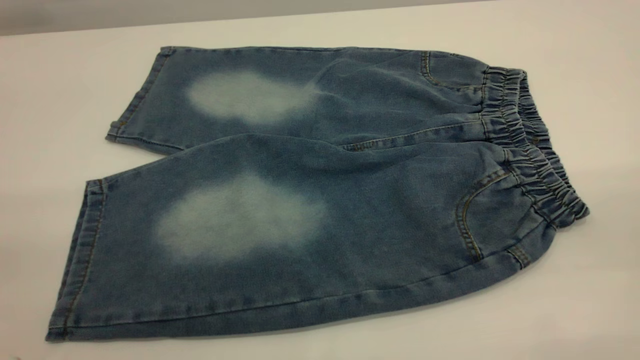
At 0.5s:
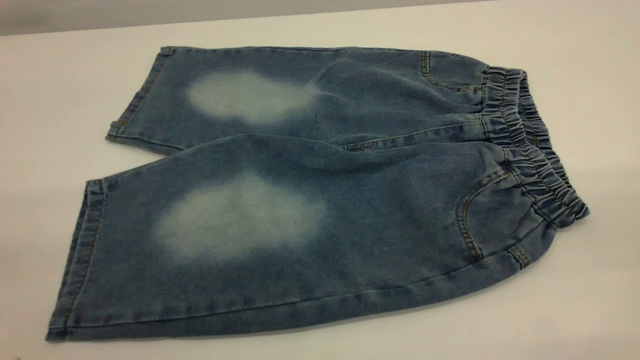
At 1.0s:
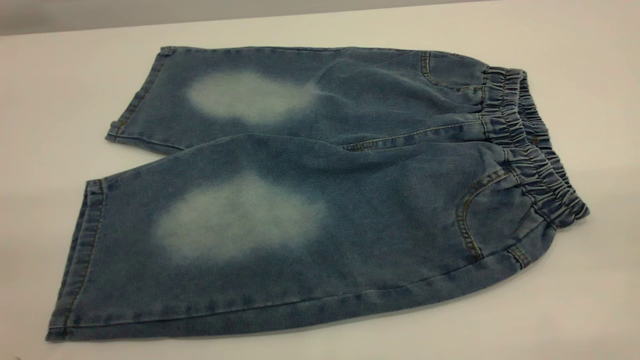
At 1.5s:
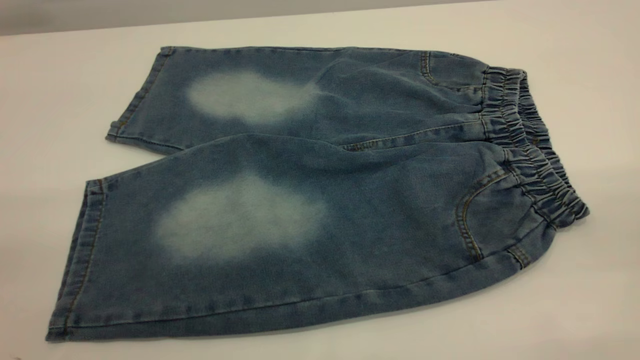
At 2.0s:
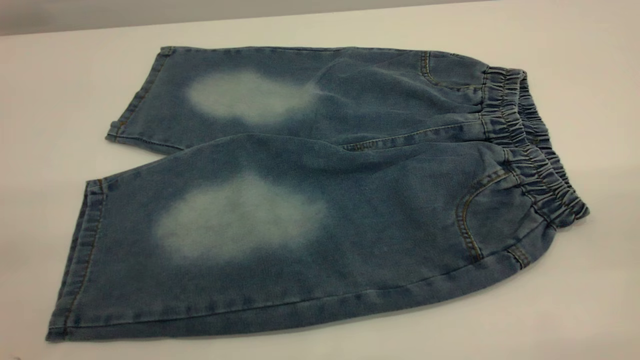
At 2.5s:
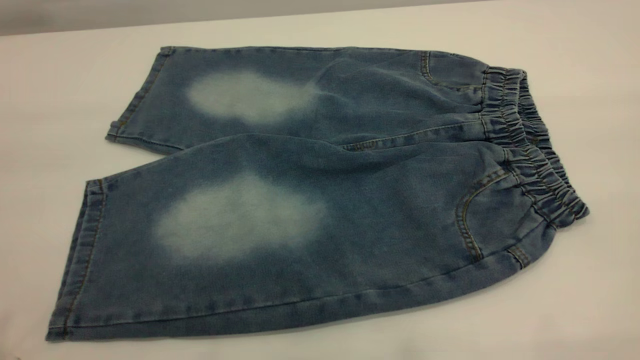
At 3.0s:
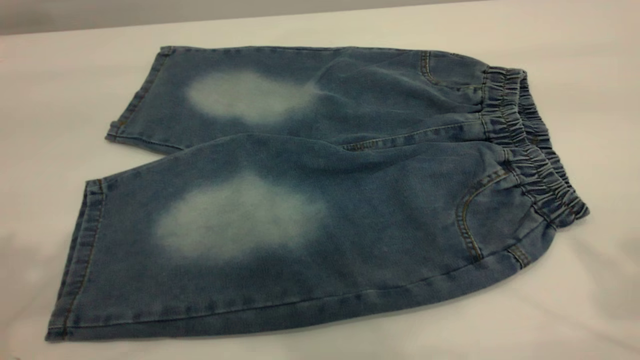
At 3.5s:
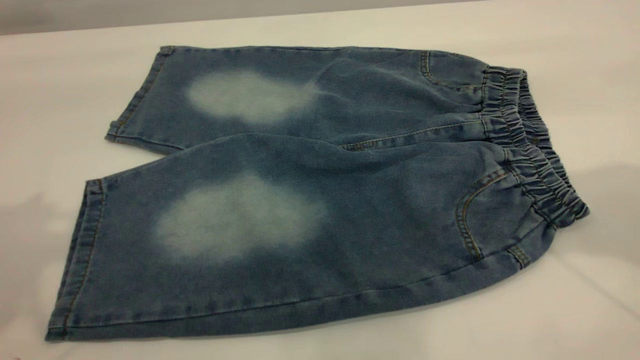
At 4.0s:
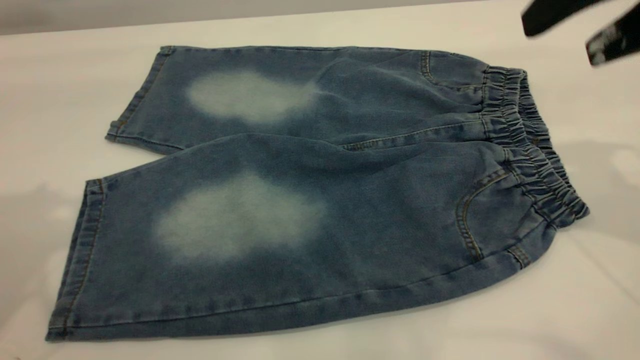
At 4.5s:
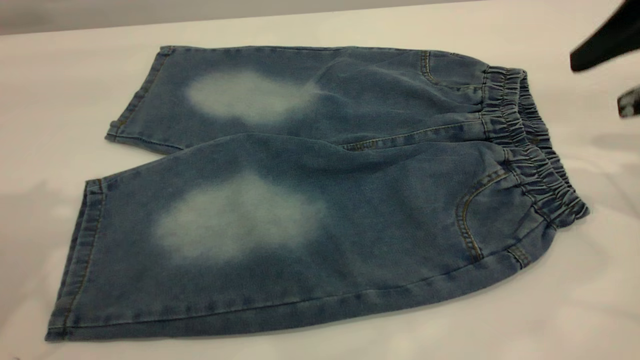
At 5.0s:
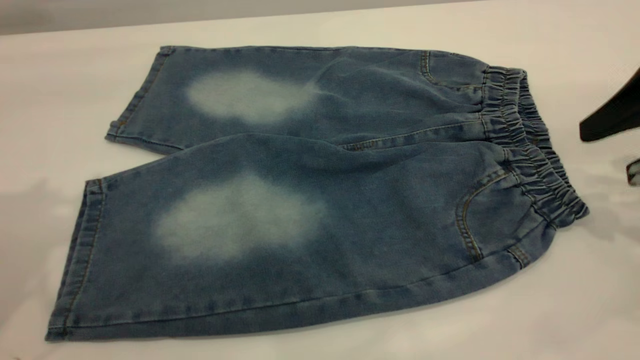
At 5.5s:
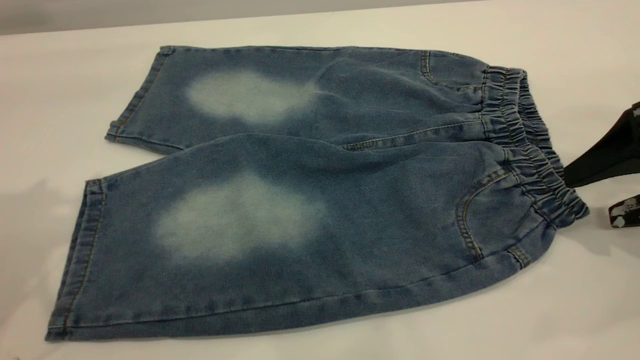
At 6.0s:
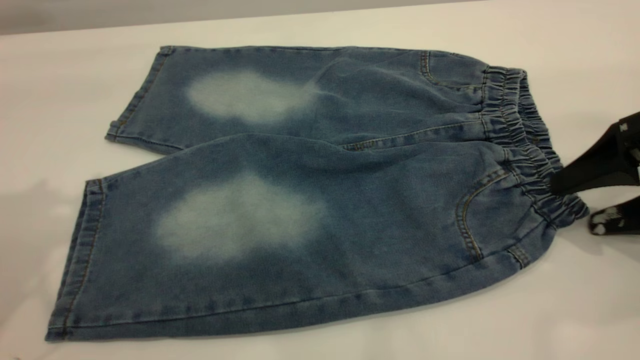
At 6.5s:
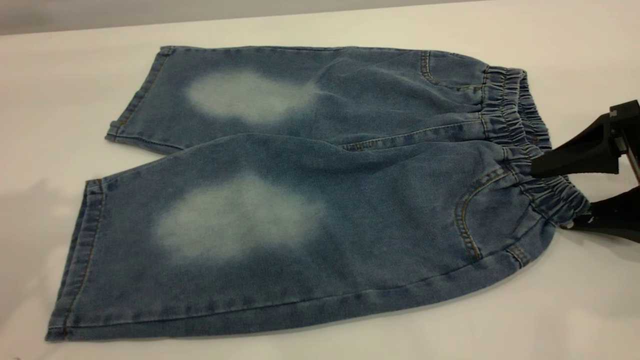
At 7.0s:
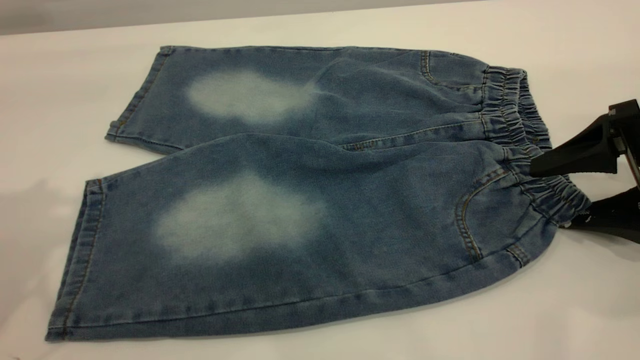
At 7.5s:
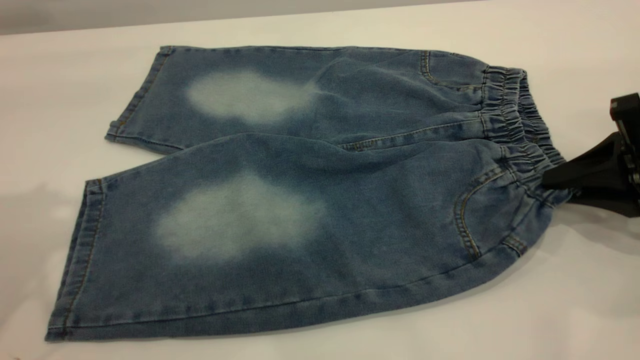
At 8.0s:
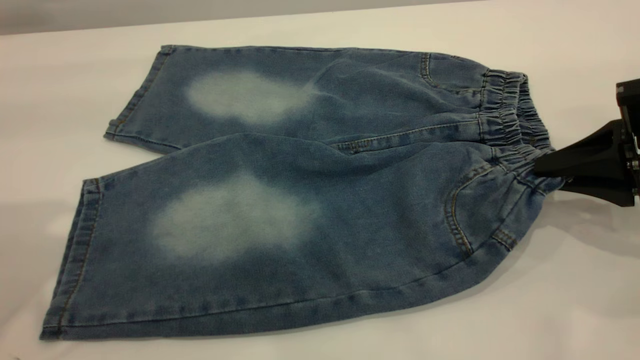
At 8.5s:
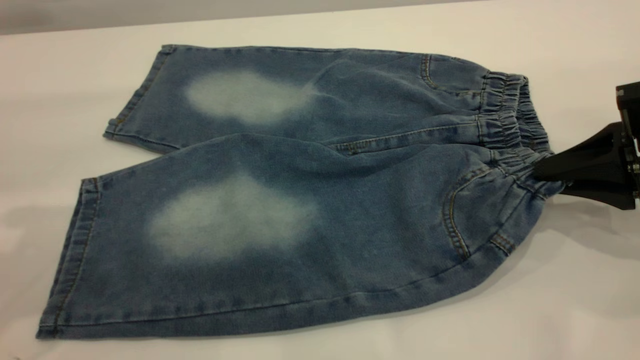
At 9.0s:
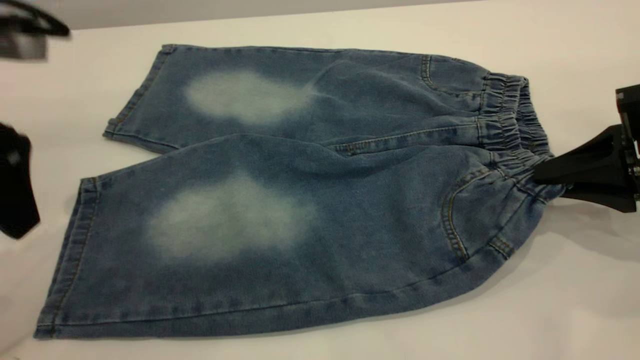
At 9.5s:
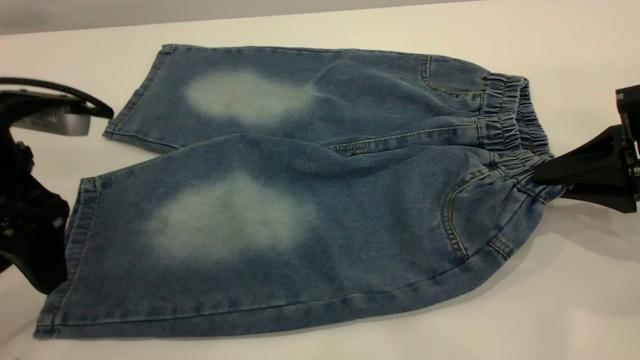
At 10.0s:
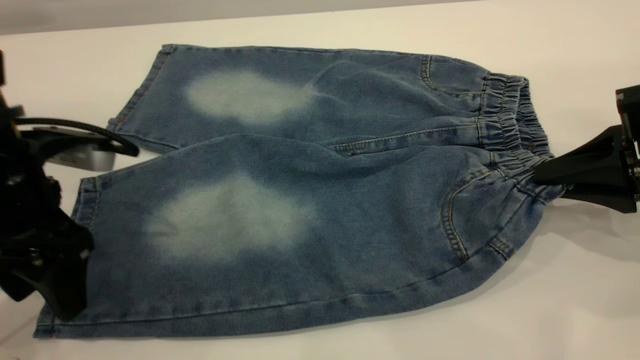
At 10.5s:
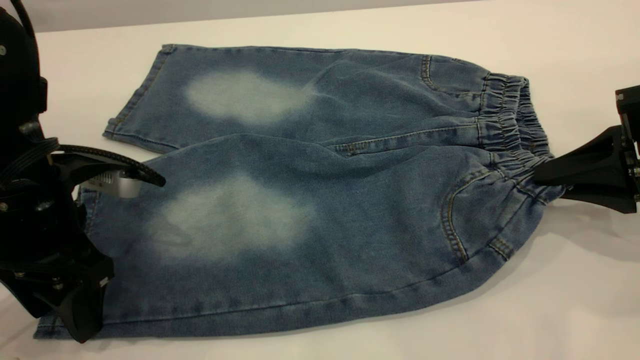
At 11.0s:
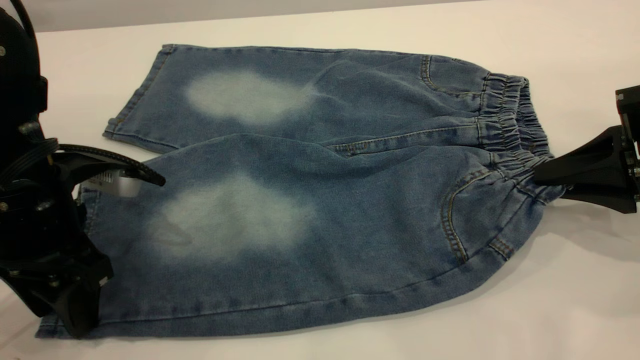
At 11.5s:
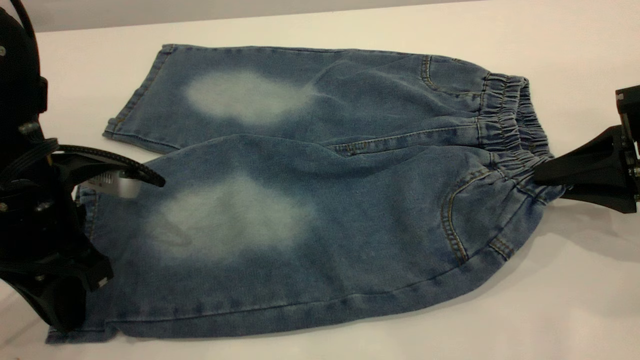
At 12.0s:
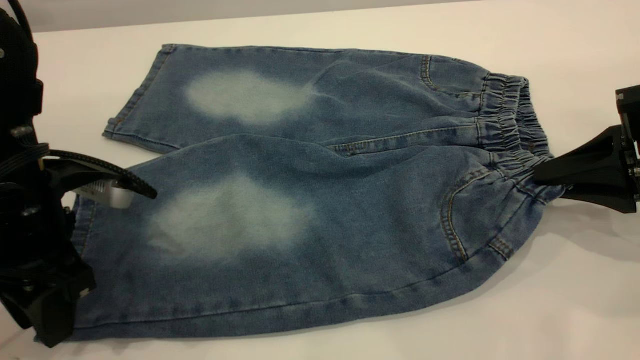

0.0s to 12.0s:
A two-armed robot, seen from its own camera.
0.0s to 2.0s: The two grippers keep their place.
2.0s to 4.0s: The right gripper is displaced forward by approximately 30 cm.
4.0s to 6.0s: The right gripper moves downward, roughly 15 cm.
6.0s to 8.0s: The right gripper closes.
8.0s to 10.0s: The left gripper travels downward by roughly 20 cm.
10.0s to 12.0s: The left gripper closes.

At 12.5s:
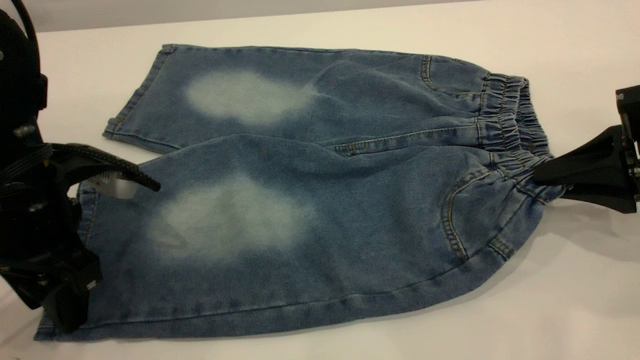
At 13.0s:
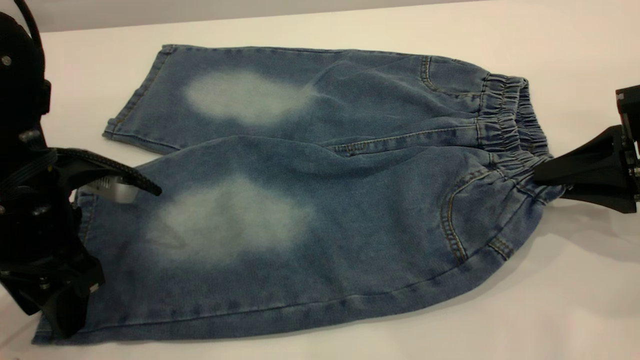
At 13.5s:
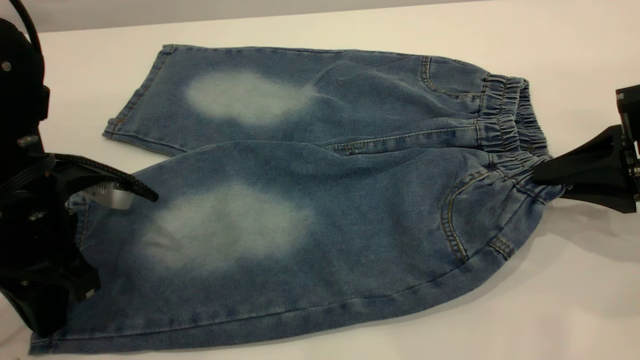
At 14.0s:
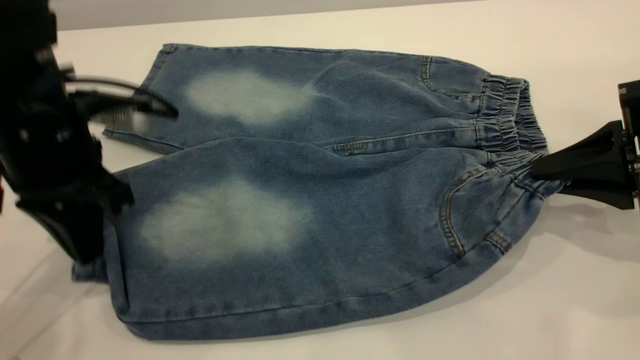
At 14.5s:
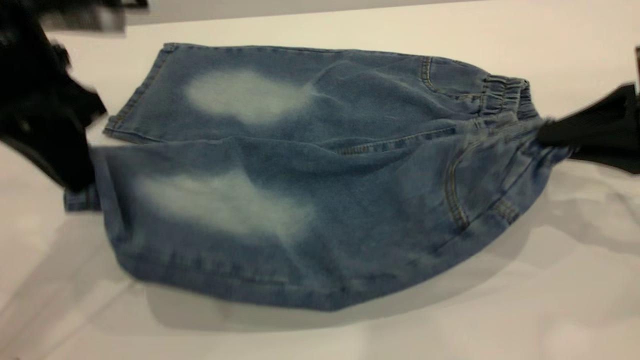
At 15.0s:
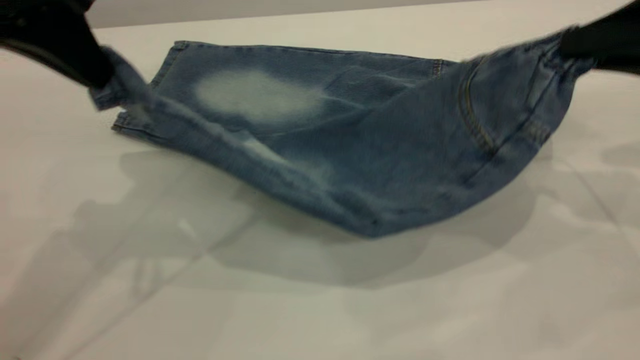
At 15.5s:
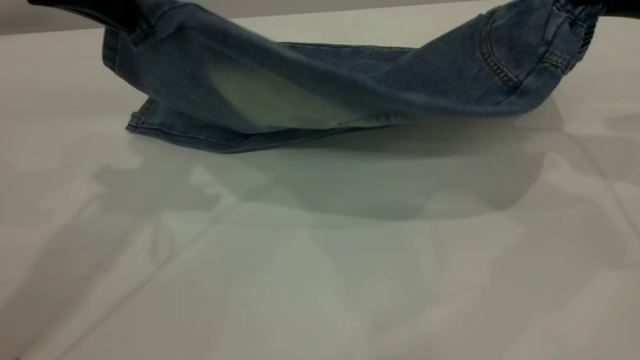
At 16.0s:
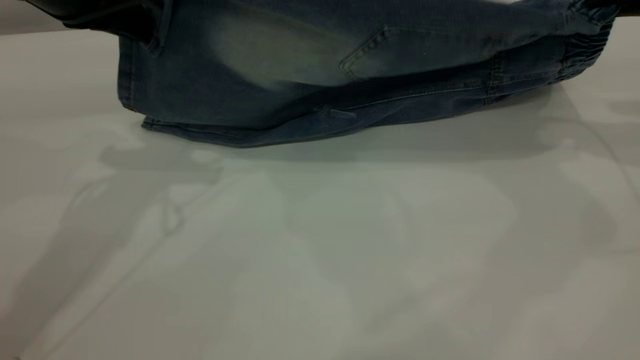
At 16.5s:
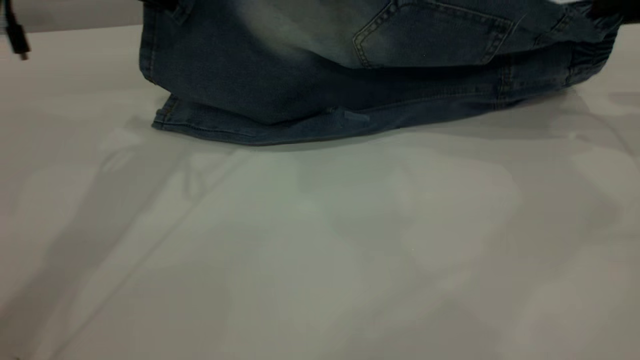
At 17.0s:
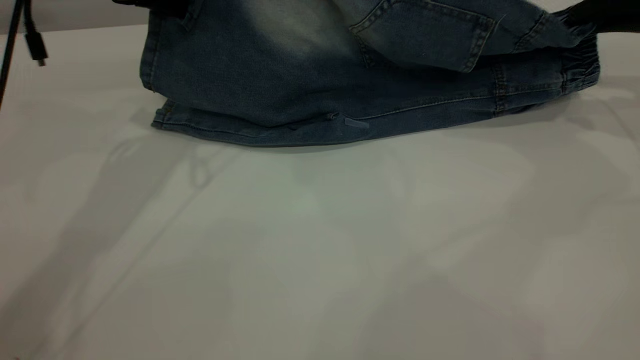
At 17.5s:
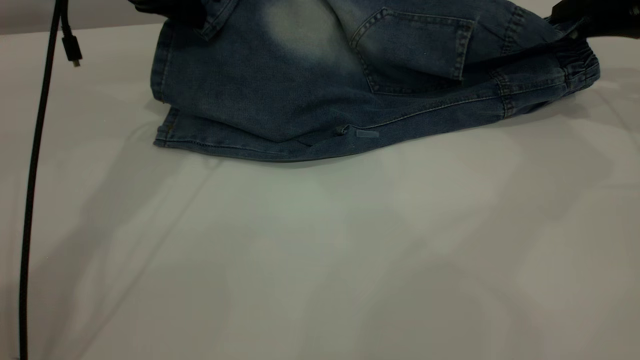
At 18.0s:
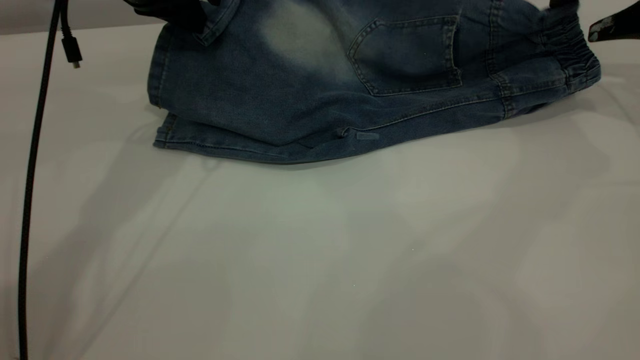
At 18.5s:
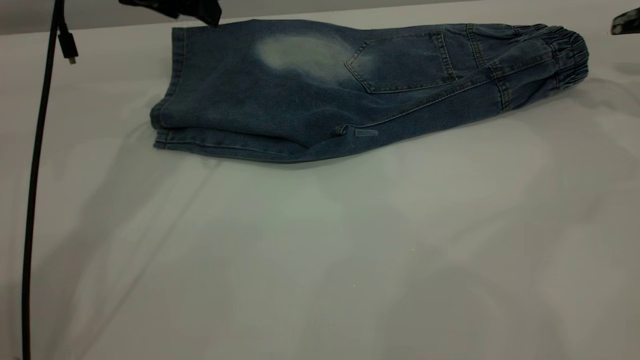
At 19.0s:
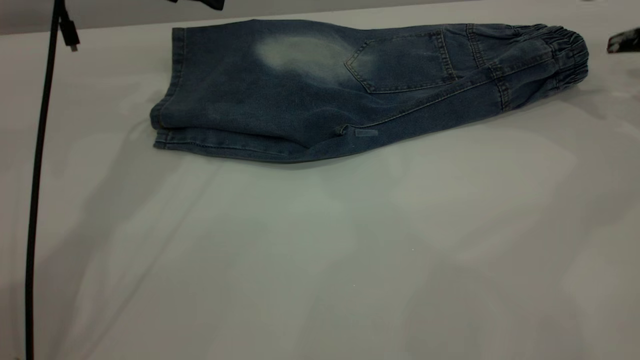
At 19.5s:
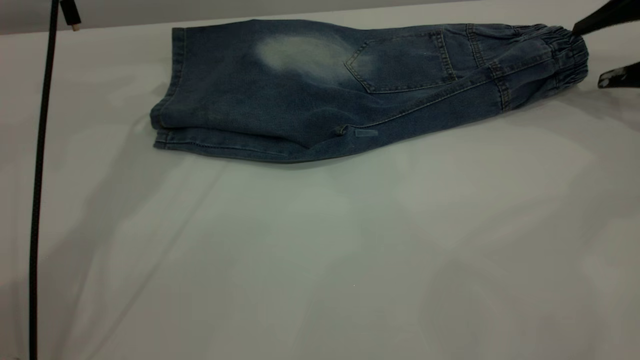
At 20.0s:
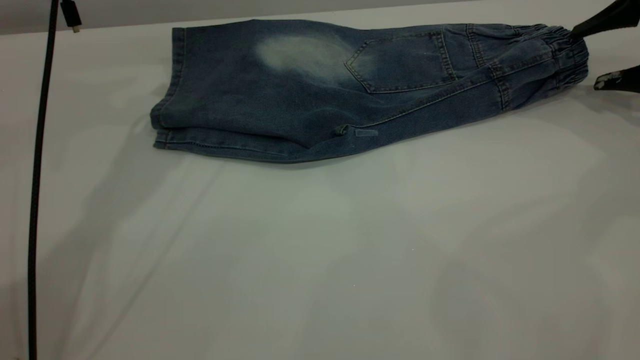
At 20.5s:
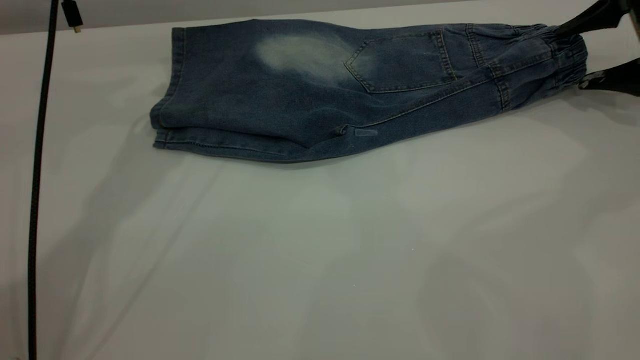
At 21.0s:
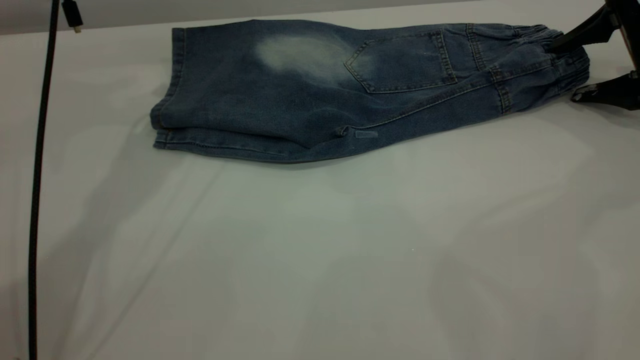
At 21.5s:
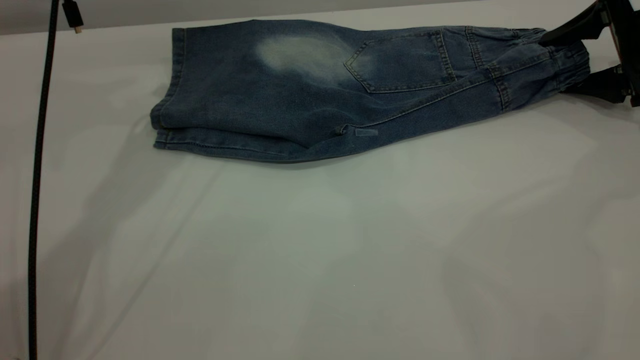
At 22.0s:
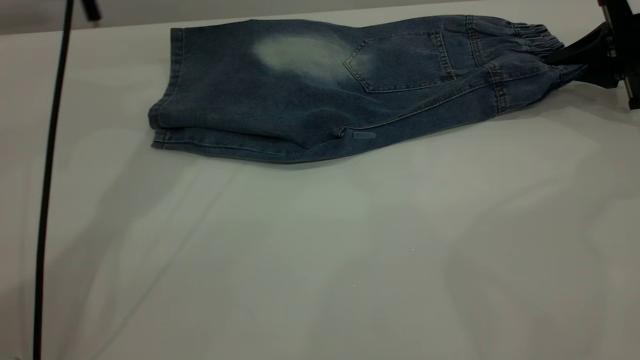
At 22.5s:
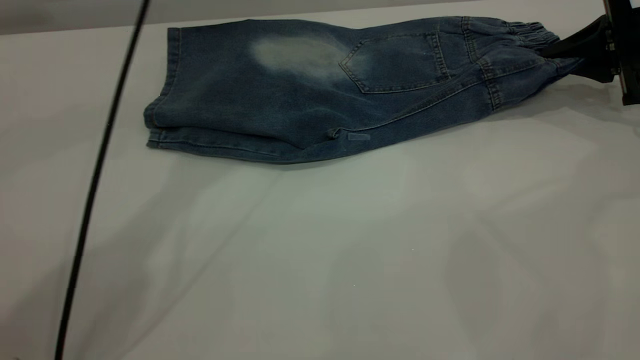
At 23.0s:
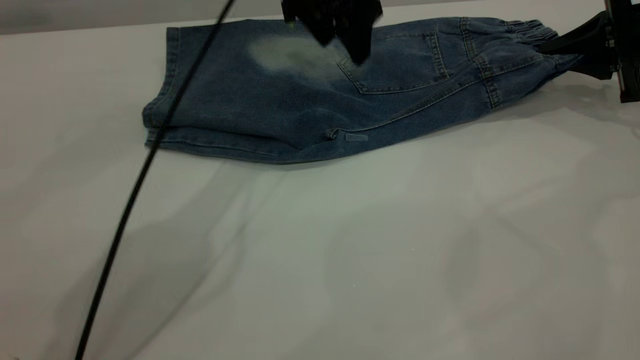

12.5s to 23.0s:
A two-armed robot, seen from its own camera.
Step, 12.5s to 19.5s: Fold the bottom of the pants upward.
12.5s to 14.5s: The left gripper moves upward, roughly 10 cm, and closes up.
14.5s to 16.5s: The right gripper shifts roughly 10 cm forward and upward, while the left gripper goes some 10 cm forward.
16.5s to 19.0s: The right gripper shifts by some 5 cm, and opens its fingers; the left gripper shifts by some 5 cm, and opens up.
19.0s to 21.0s: The right gripper shifts some 5 cm downward.
21.0s to 23.0s: The right gripper closes up, while the left gripper is displaced to the right by roughly 15 cm.
